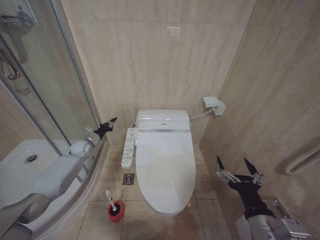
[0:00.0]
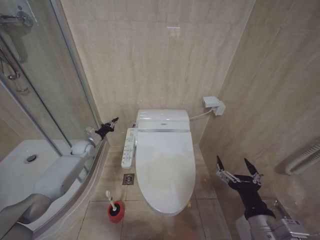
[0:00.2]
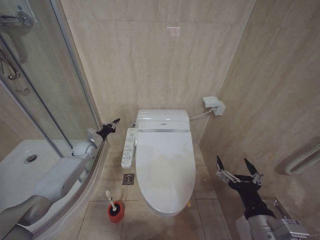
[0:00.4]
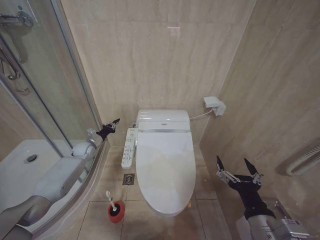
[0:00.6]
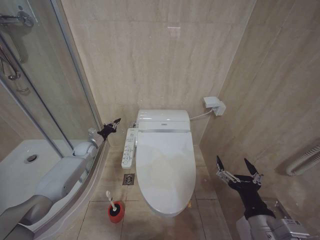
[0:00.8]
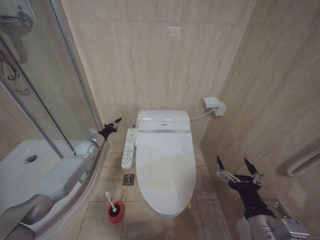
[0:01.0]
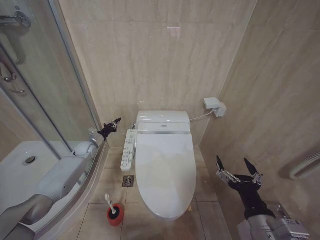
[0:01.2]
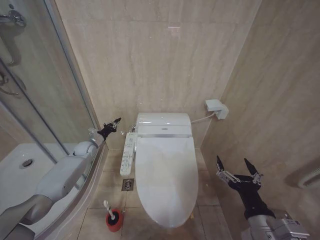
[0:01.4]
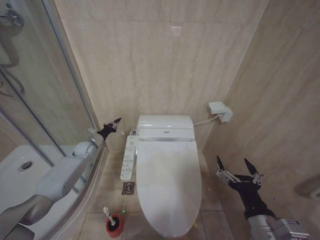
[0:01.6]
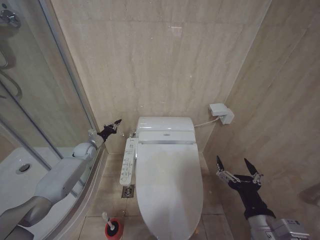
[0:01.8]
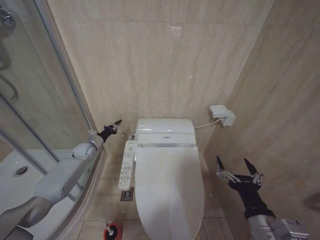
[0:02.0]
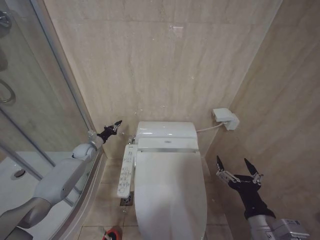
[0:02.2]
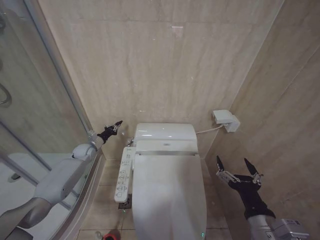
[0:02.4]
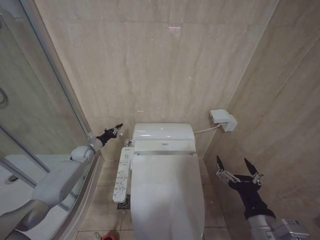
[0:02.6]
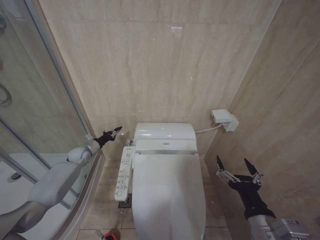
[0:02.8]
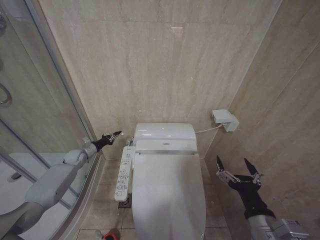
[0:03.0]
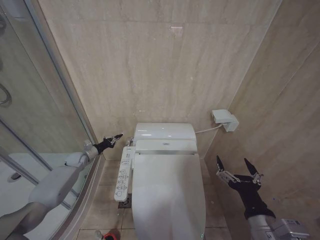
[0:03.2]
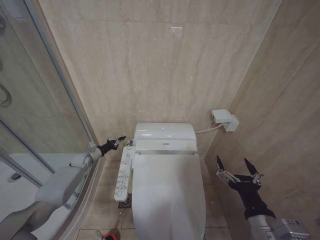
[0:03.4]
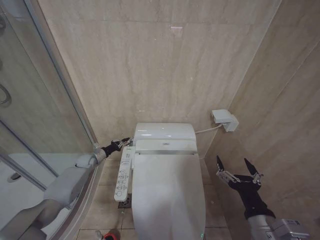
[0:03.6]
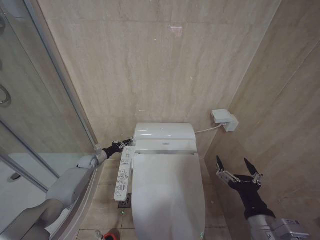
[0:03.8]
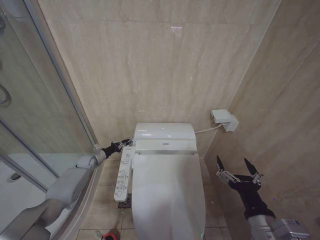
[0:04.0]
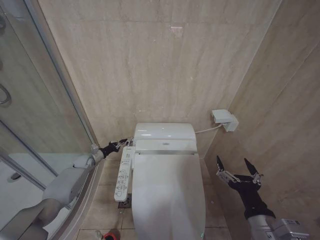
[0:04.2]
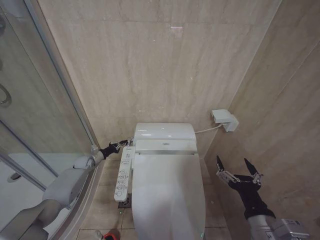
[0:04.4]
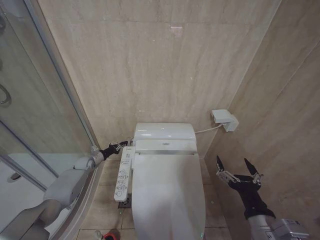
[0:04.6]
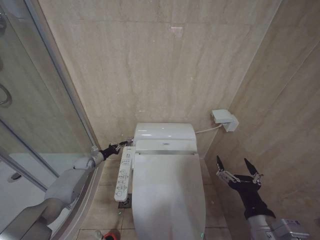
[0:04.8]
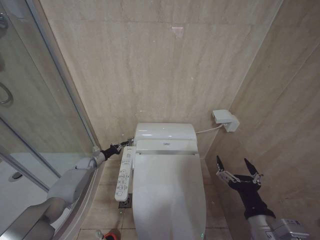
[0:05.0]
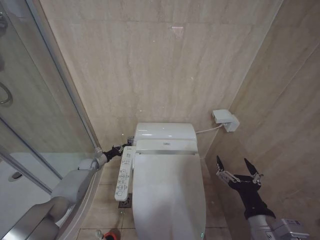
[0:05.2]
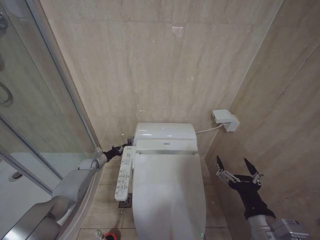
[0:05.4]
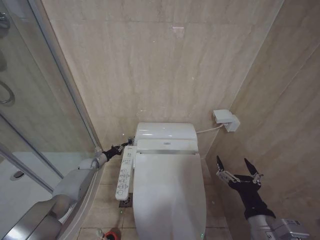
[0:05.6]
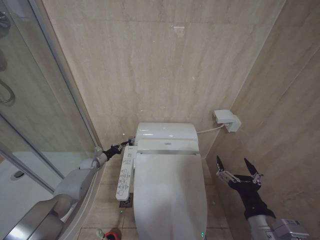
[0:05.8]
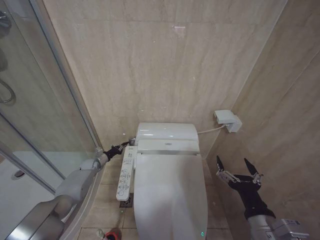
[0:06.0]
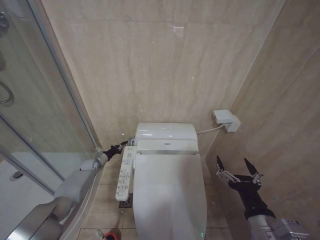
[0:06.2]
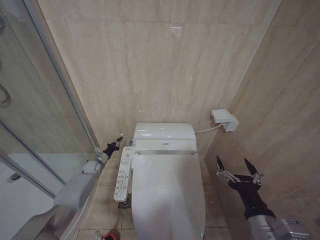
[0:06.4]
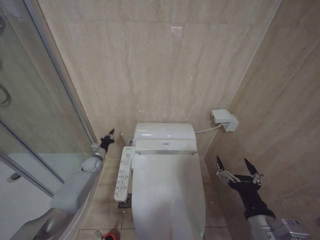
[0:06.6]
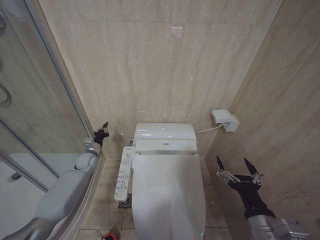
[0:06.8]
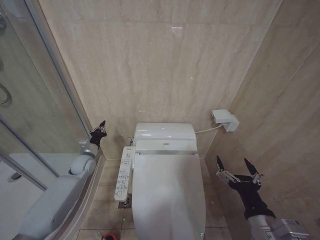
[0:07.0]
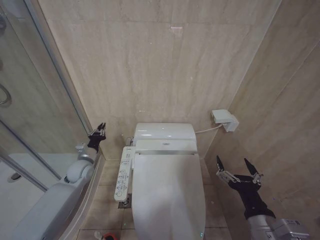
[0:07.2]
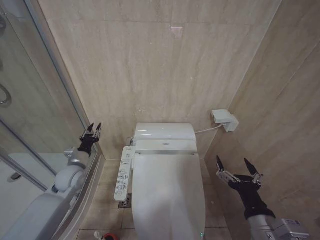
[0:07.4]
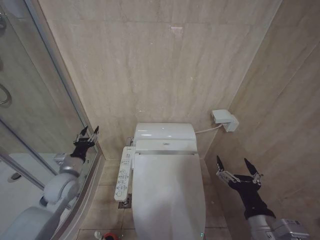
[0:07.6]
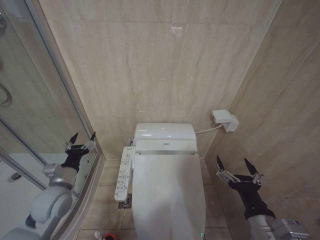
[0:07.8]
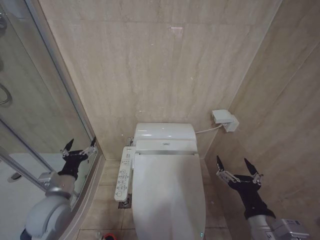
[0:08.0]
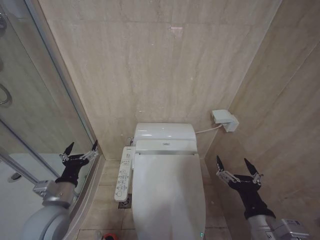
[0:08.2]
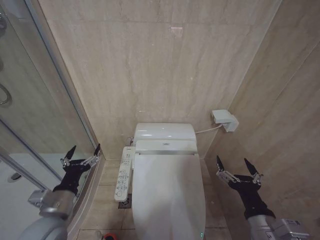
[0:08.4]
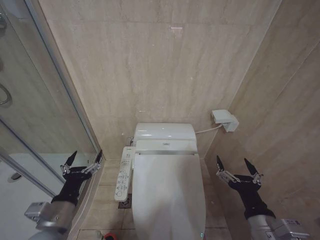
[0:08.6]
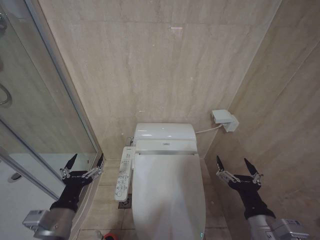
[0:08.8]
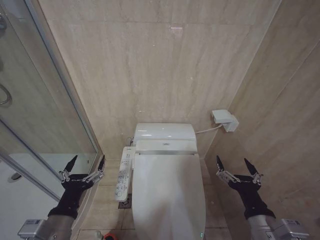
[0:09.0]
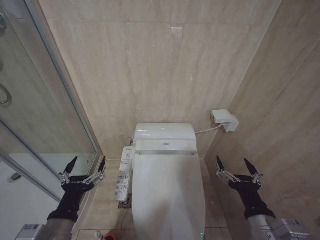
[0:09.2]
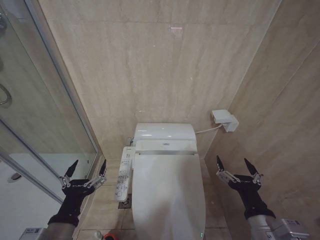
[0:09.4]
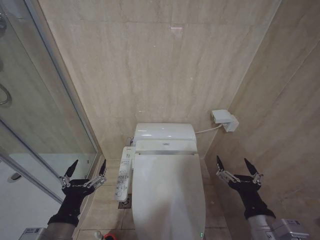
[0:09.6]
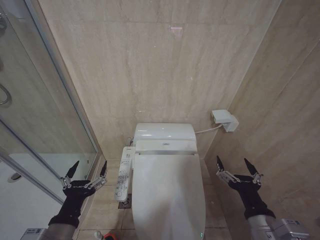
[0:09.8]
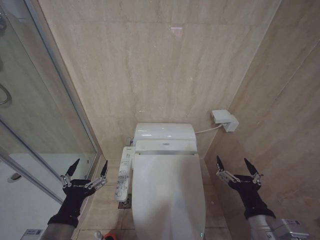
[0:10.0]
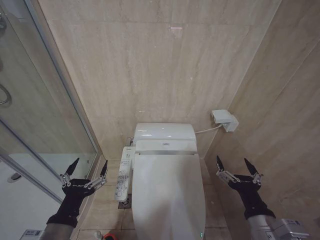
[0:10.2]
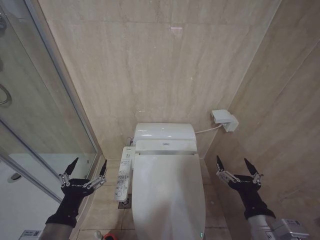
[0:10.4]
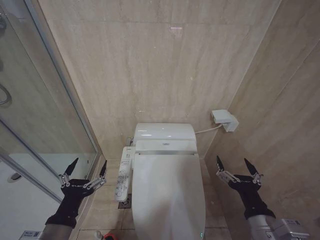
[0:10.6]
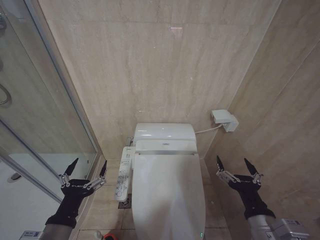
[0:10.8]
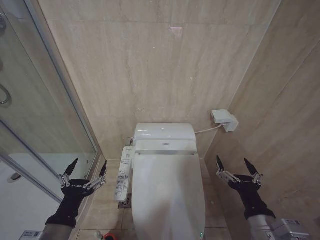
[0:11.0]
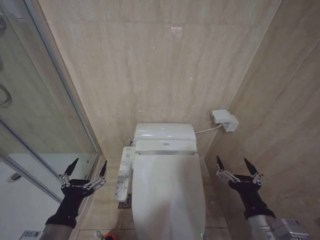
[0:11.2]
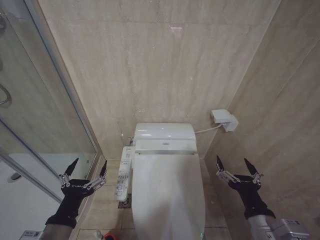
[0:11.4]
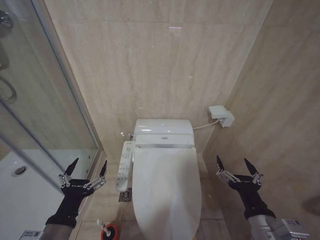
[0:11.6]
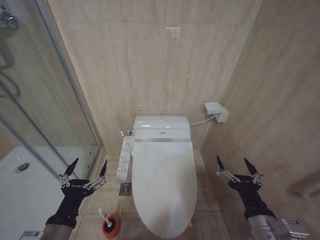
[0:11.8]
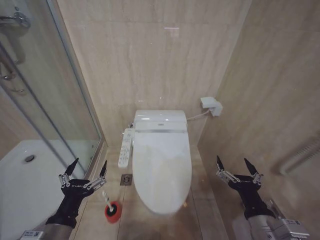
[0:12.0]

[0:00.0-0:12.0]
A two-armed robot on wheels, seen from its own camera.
Task of the whole recording: Open the toilet lid, clean the toilet bowl with a toilet brush, close the toilet lid, and flush.
0:00.0 to 0:01.6: The grippers make only small movements.
0:01.6 to 0:03.0: The left gripper changes place by approximately 5 cm.
0:03.0 to 0:04.4: The left gripper travels downward by approximately 5 cm.
0:04.4 to 0:06.0: There are only small adjustments of the grippers.
0:06.0 to 0:07.6: The left gripper heads backward and upward, covering about 25 cm.
0:07.6 to 0:09.0: The left gripper heads backward, covering roughly 20 cm, and opens its fingers.
0:09.0 to 0:10.4: The grippers move only a little.
0:10.4 to 0:12.0: Both grippers stay about where they are.

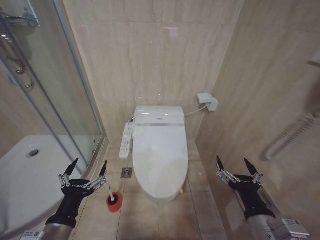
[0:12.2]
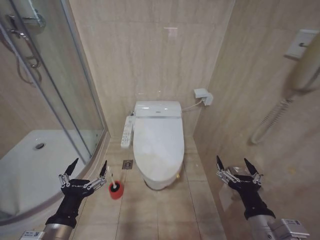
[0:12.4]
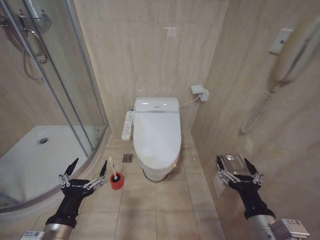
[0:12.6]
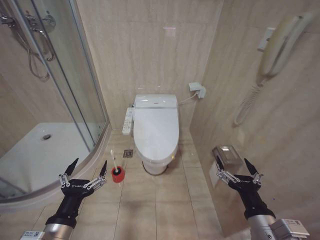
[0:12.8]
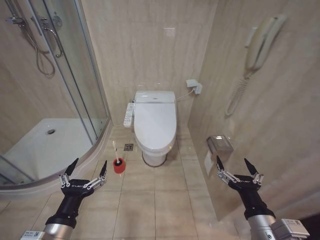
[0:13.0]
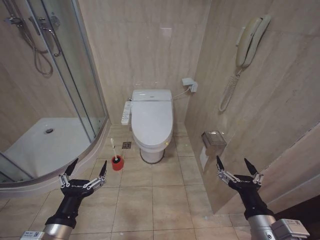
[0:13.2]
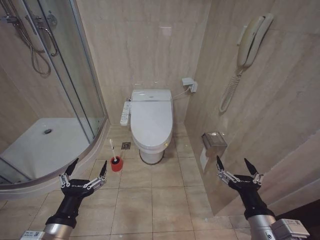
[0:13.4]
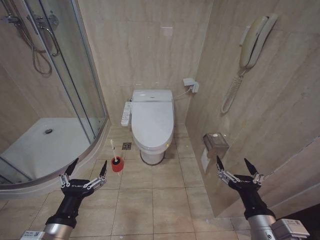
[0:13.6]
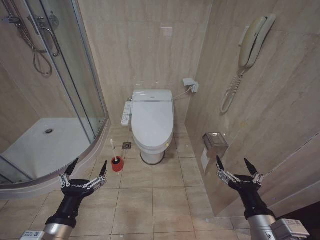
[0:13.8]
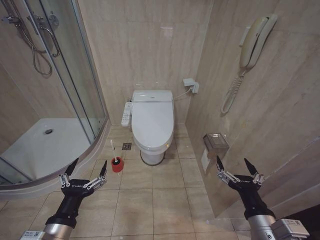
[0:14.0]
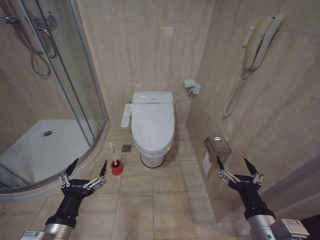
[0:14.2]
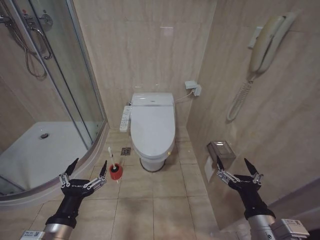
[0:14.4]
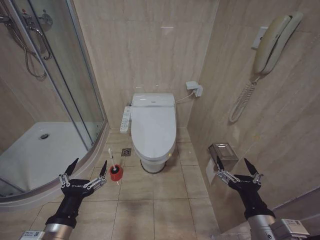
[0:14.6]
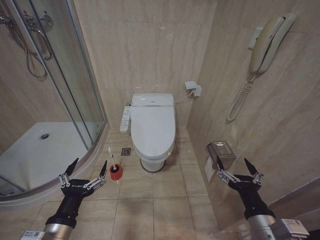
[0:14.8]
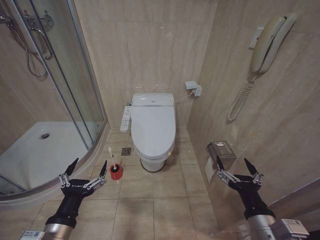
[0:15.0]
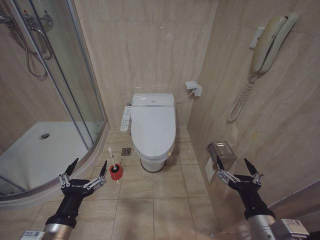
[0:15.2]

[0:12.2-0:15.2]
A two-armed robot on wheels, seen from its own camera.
Task of the whole recording: Open the toilet lid, clean the toilet bowl with a toilet brush, close the toilet lid, and flush.
0:13.8 to 0:15.2: Neither gripper changes place.
